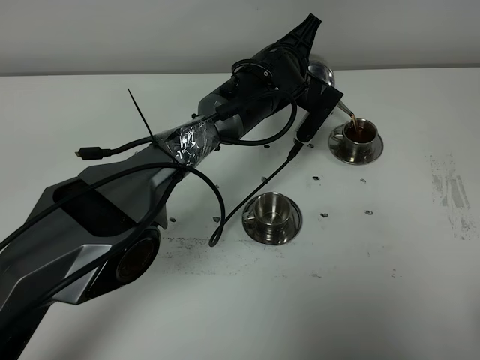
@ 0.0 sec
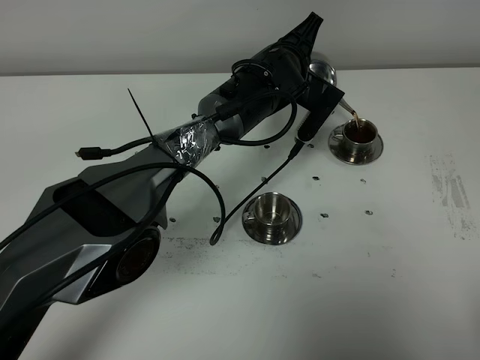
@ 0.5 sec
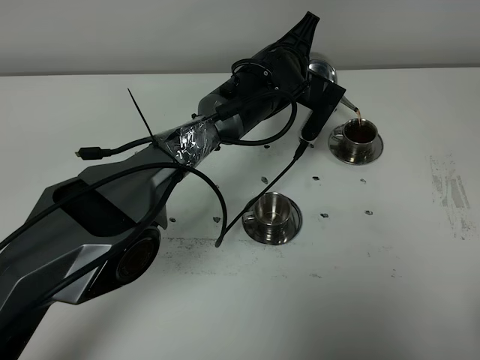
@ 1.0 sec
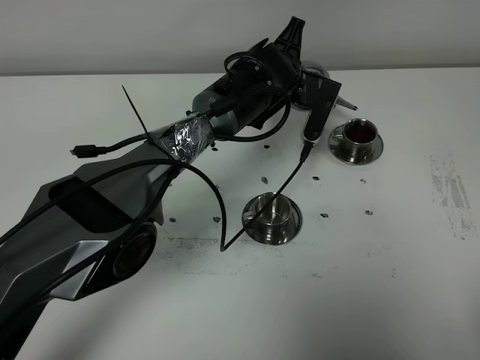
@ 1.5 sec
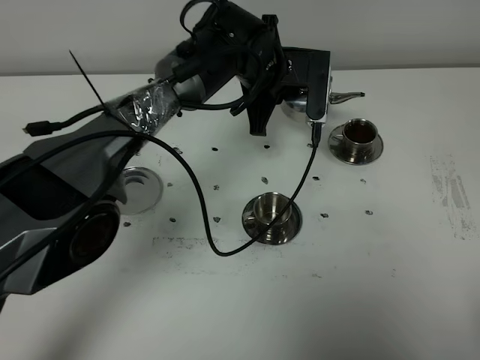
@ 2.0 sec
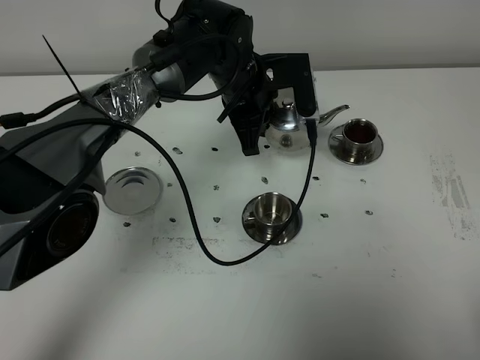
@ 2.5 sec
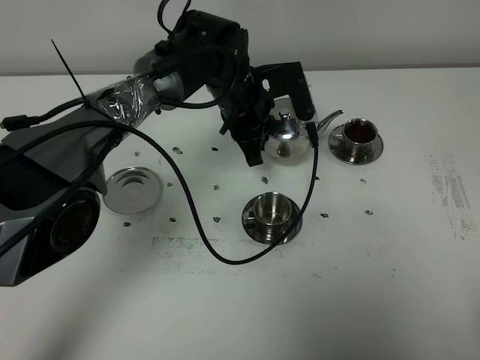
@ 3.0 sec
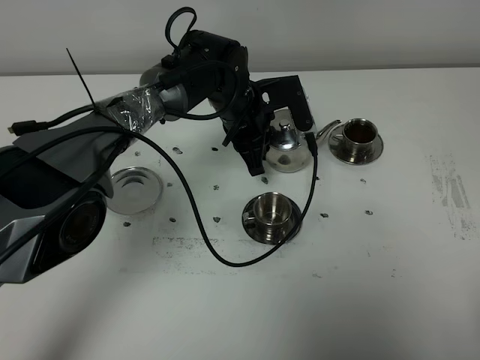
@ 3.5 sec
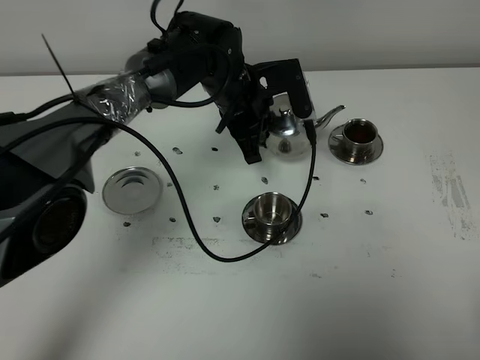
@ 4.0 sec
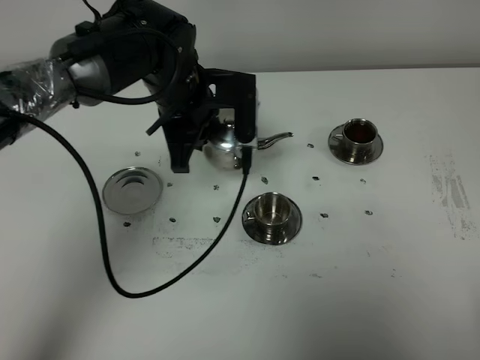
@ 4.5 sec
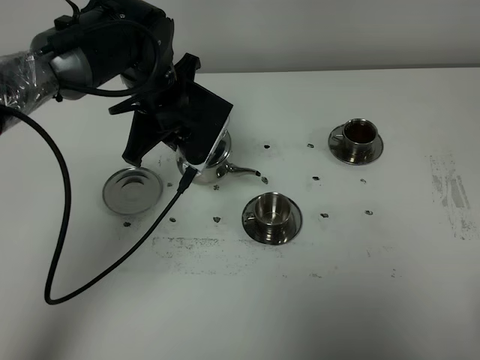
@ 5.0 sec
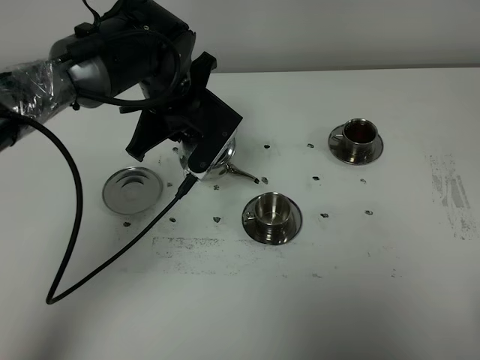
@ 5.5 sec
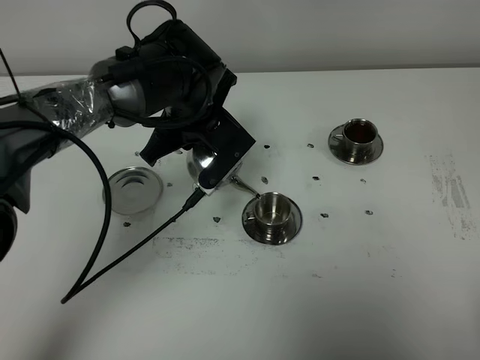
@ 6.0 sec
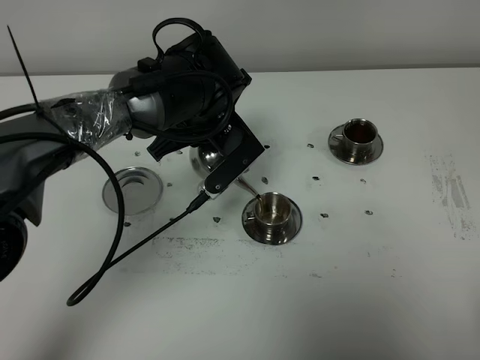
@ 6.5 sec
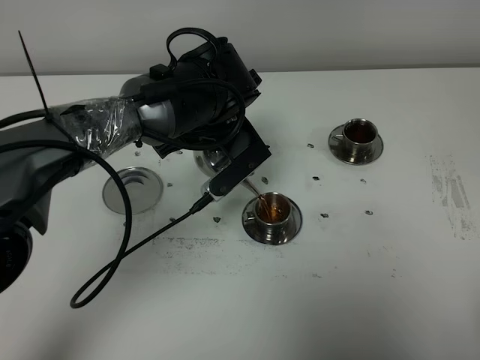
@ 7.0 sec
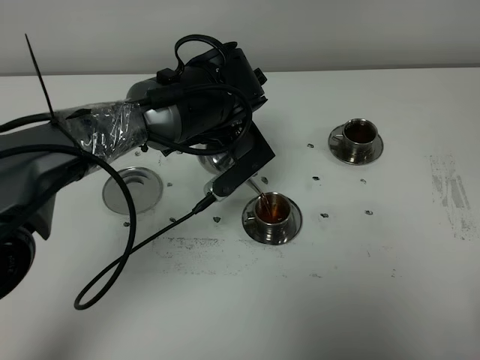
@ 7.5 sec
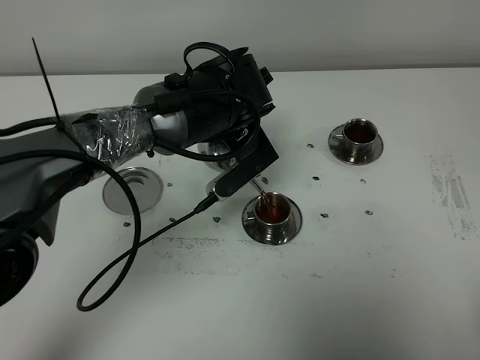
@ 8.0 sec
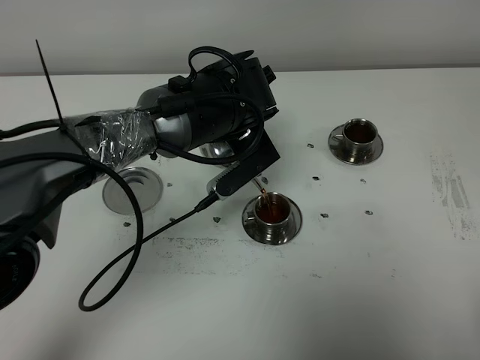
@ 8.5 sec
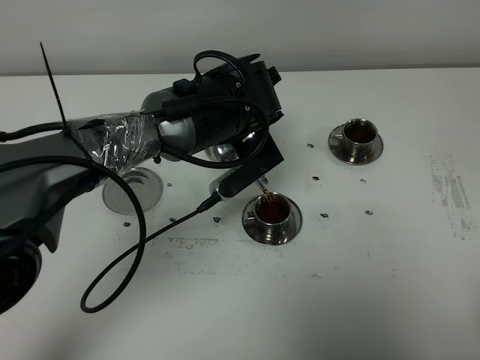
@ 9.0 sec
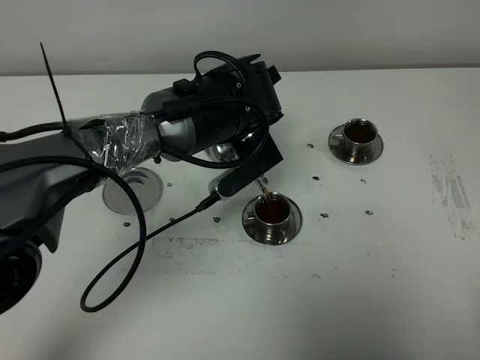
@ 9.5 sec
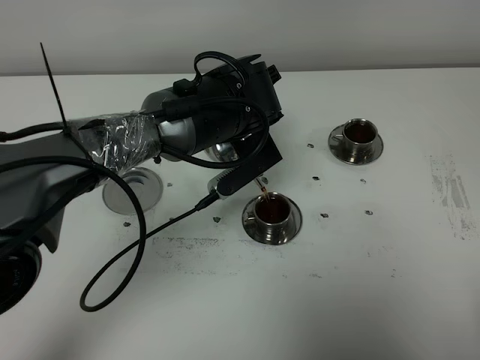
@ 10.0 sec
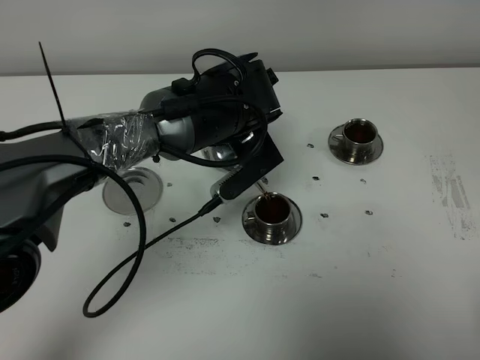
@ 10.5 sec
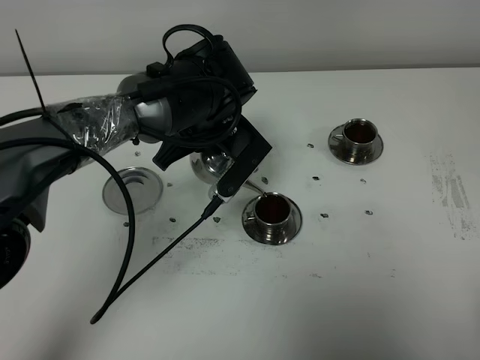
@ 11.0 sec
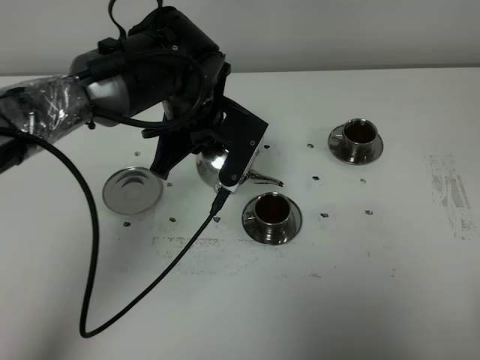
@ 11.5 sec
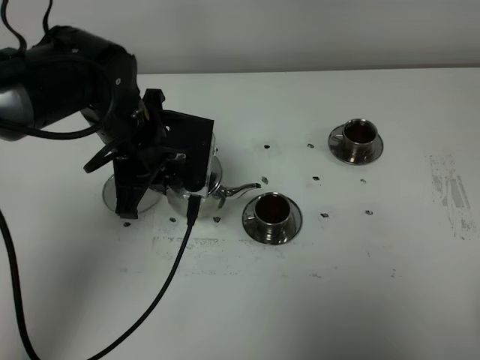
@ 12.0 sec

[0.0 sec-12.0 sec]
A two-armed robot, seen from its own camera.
Task of the whole recording: grasp the stainless steel teapot and pour the tea into the two stainless steel teacups one by one, put the stainless steel teapot back in its original place.
Step, 2.0 sec to 11.0 sec: Pour tea into the teacup with the left gripper.
0.0 sec to 2.0 sec: The left gripper changes place by about 5 cm.
6.0 sec to 8.0 sec: The left gripper shifts by approximately 5 cm.
8.0 sec to 10.0 sec: Neither gripper changes place.
10.0 sec to 12.0 sec: The left gripper heads to the left, covering some 10 cm.

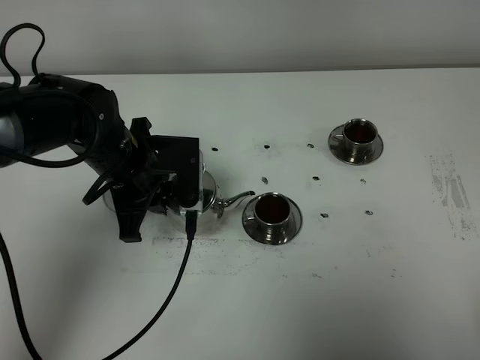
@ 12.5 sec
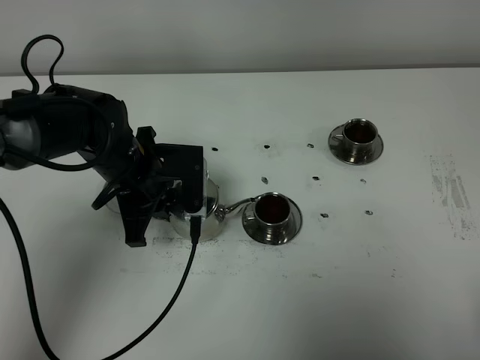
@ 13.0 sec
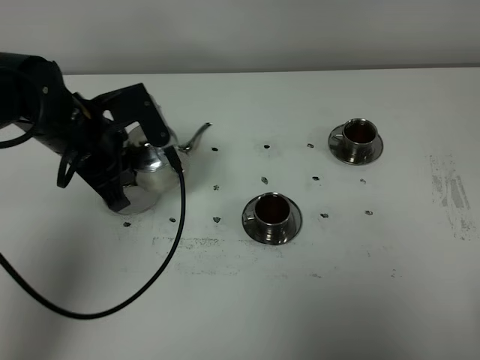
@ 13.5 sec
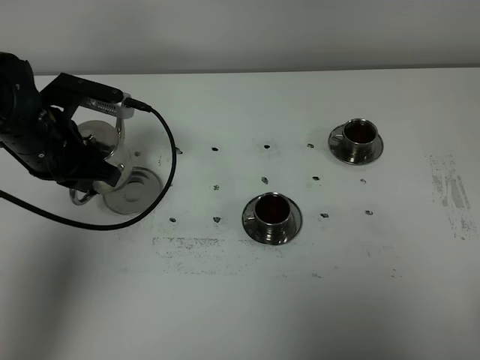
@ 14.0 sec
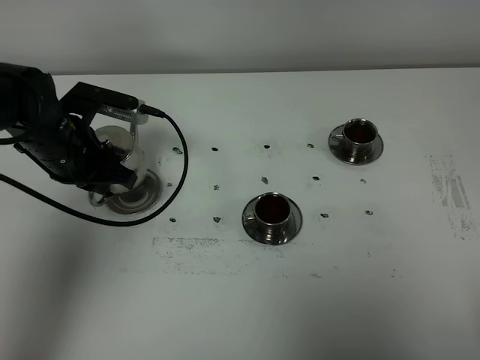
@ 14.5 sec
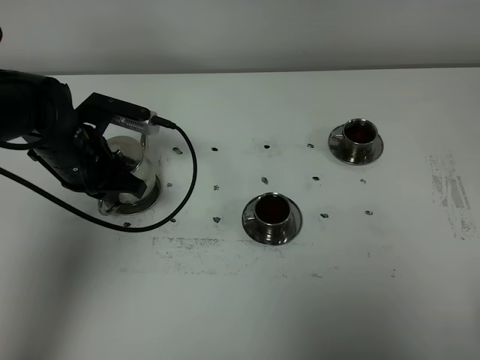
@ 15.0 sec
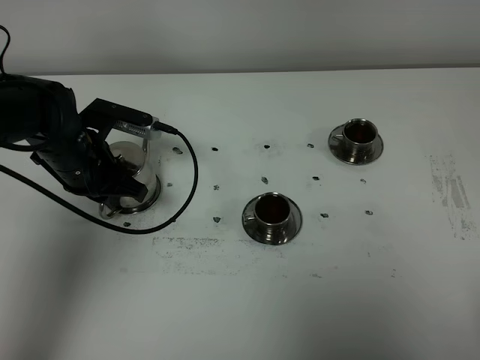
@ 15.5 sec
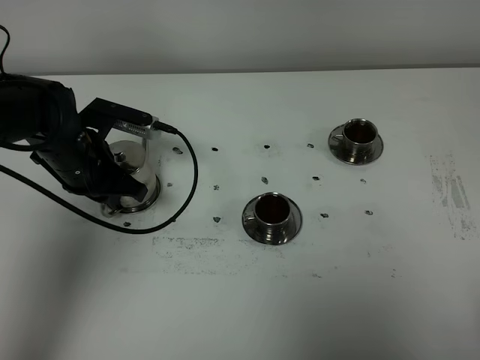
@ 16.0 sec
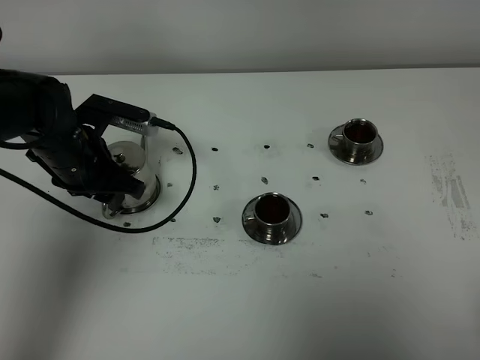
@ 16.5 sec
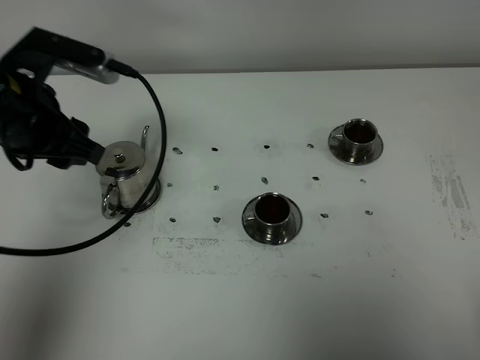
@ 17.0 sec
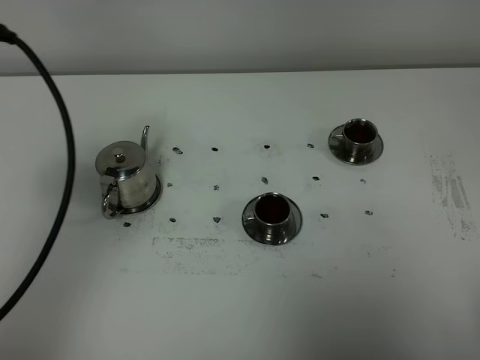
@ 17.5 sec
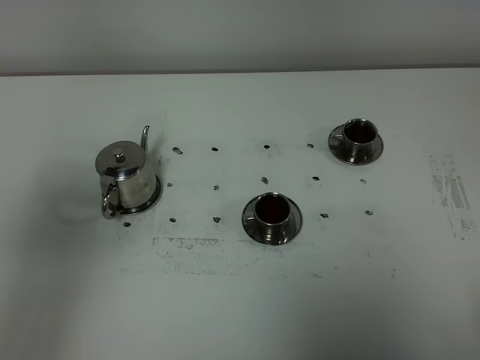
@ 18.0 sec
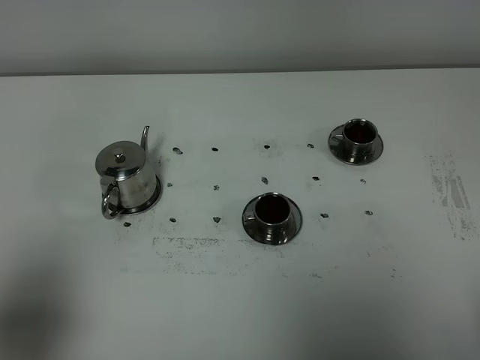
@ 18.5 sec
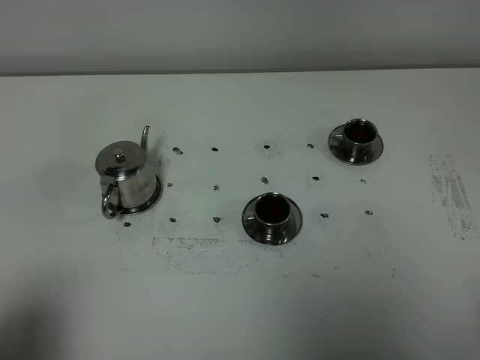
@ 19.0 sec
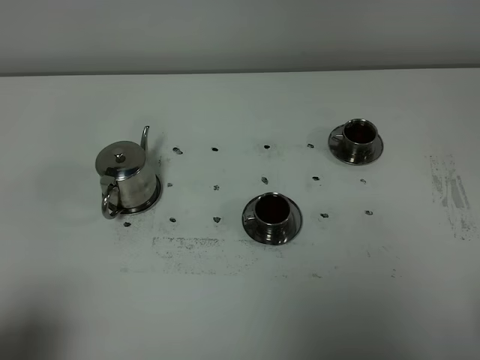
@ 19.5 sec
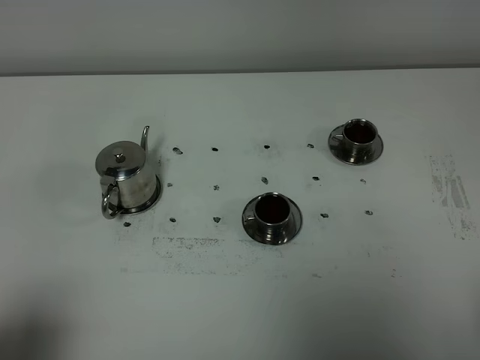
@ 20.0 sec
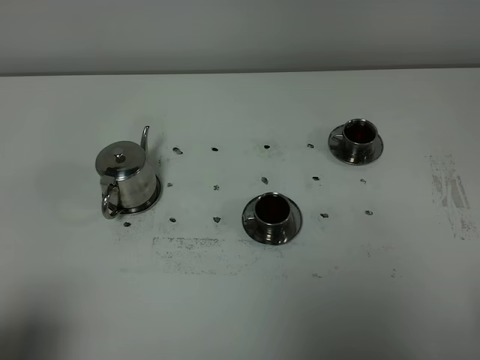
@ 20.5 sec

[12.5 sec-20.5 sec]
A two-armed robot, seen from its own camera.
Task of the whole recording: grasp the stainless steel teapot and pour the tea into the two stainless steel teacups one by one, put the stainless steel teapot back in its original place.
12.5 sec to 14.5 sec: The left gripper is displaced to the left by approximately 5 cm.
14.5 sec to 16.5 sec: The left gripper opens.
16.5 sec to 18.5 sec: The left gripper travels backward and upward by roughly 35 cm.
18.5 sec to 20.5 sec: The left gripper moves backward, approximately 5 cm.

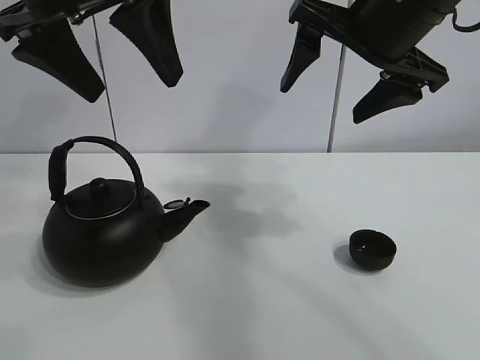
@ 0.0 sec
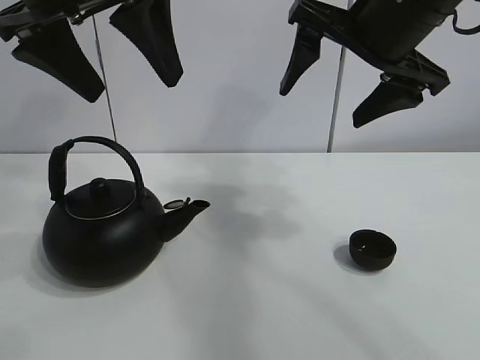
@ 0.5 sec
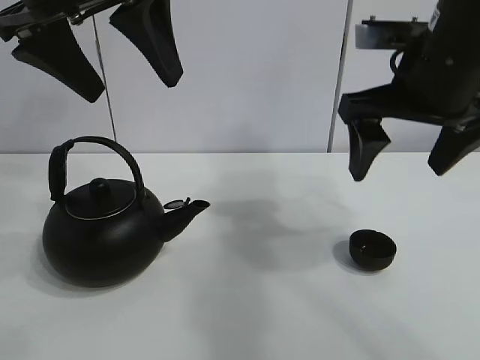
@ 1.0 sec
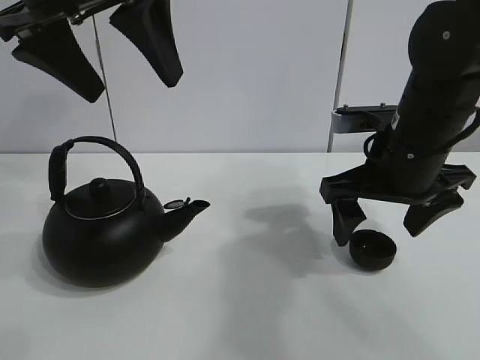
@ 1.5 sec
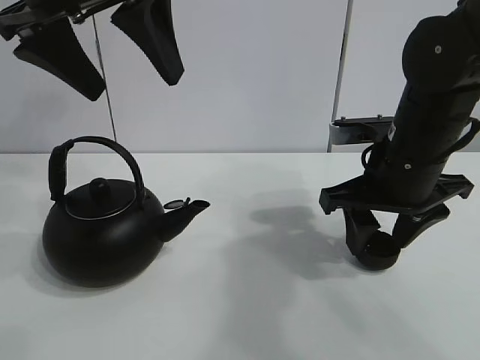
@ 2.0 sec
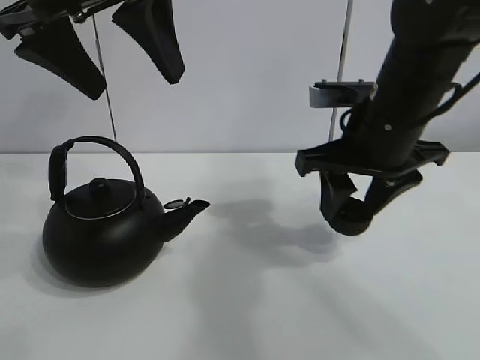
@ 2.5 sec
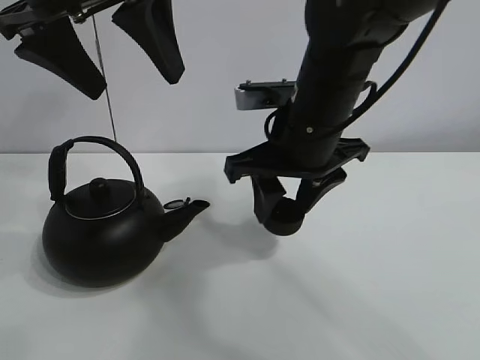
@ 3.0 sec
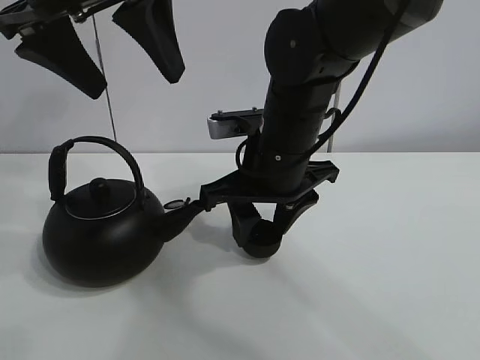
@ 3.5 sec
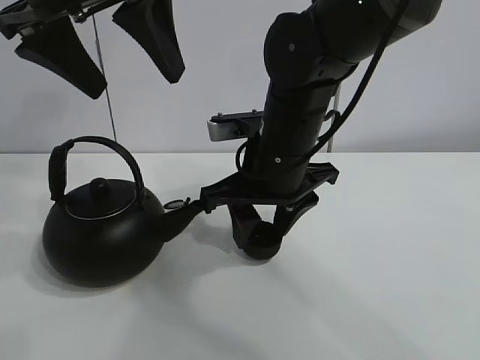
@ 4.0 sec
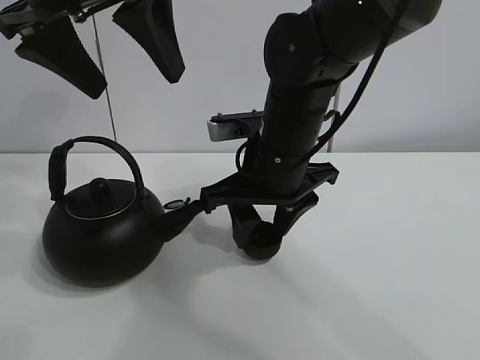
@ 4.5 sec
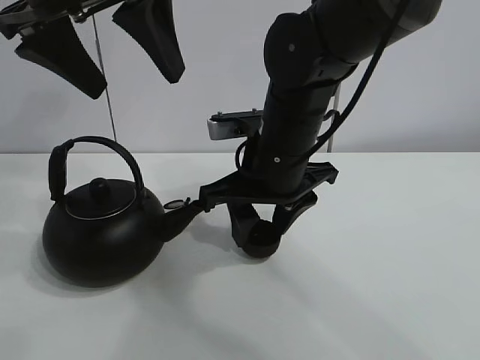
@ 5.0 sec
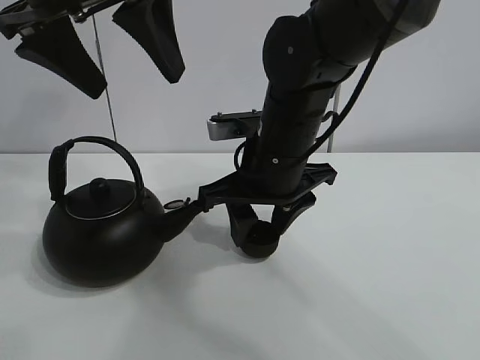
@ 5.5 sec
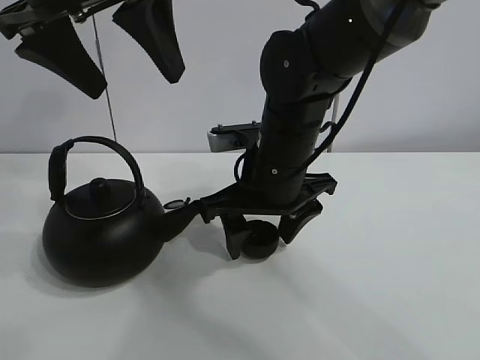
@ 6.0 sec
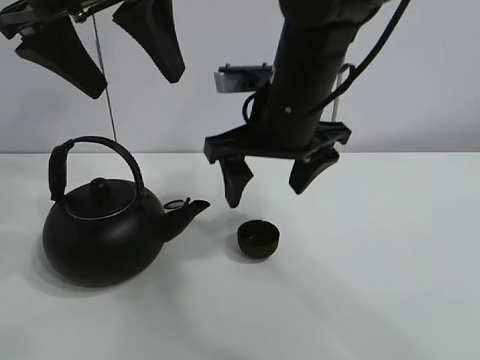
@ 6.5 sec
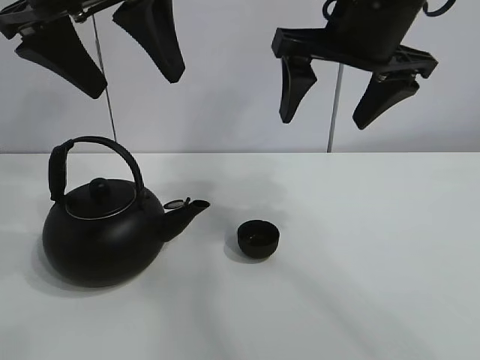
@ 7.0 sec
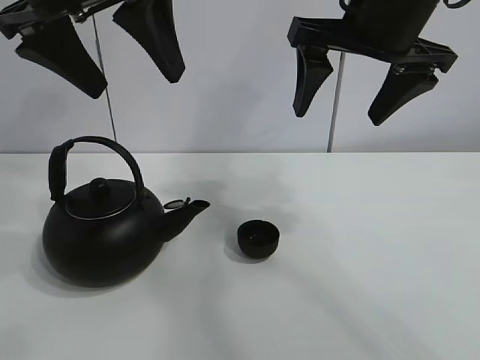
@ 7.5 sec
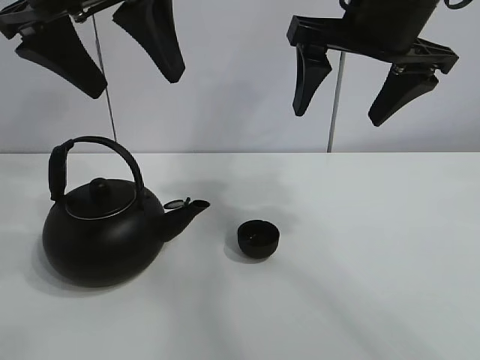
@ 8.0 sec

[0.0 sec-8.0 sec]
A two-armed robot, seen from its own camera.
Task of the whole recording: pour tea into the teacup.
Step, 0.0 sec to 2.0 sec: Pick up the teacup with the right gripper.
Step, 2.5 sec to 6.0 sec: Place the teacup in the center of view with the right gripper.
2.0 sec to 4.0 sec: The right gripper shifts approximately 10 cm to the left.
4.0 sec to 6.0 sec: The right gripper opens up.
6.0 sec to 8.0 sec: The right gripper travels upward and to the right by roughly 20 cm, and opens up.
